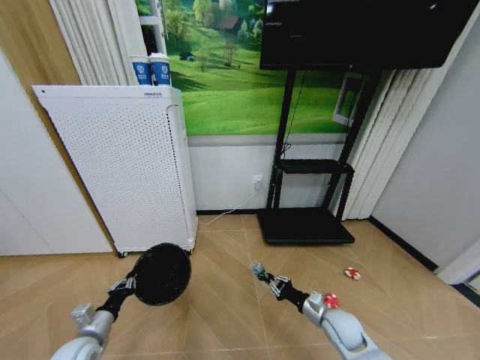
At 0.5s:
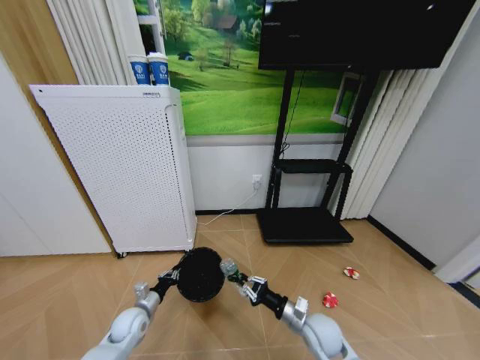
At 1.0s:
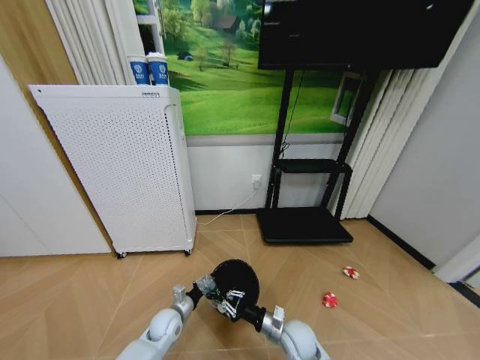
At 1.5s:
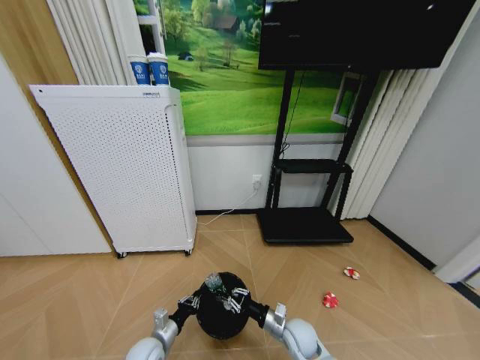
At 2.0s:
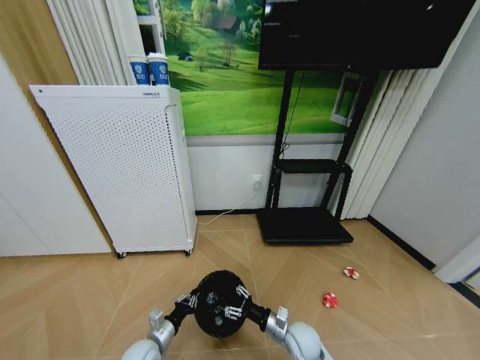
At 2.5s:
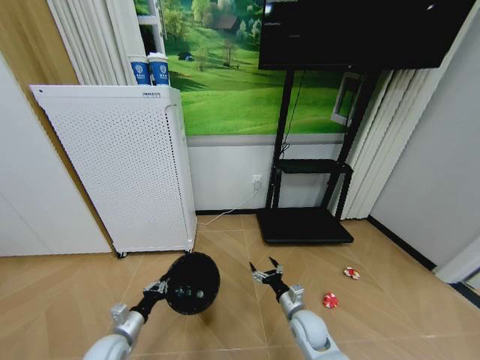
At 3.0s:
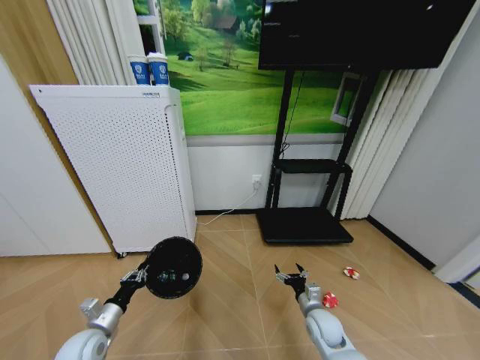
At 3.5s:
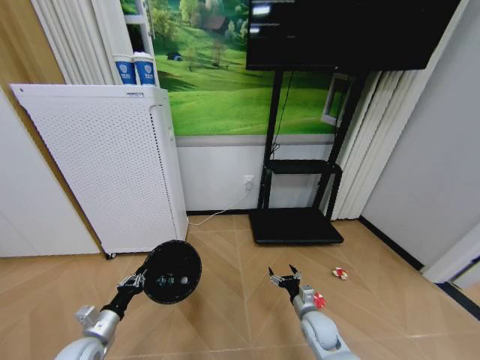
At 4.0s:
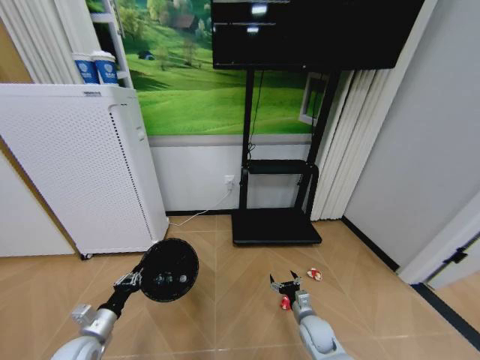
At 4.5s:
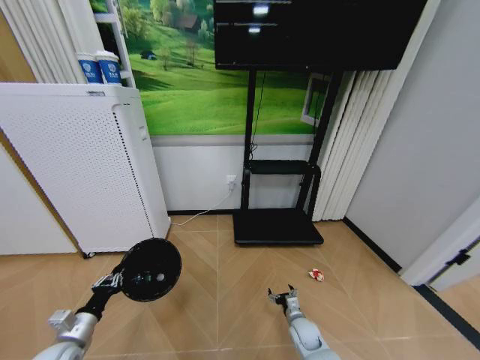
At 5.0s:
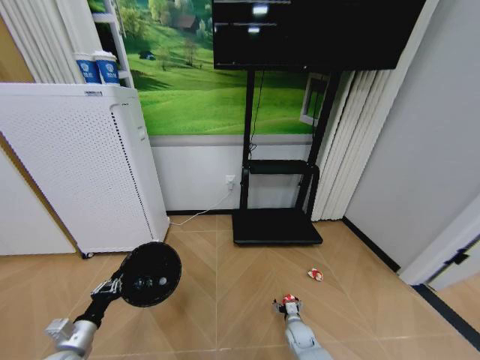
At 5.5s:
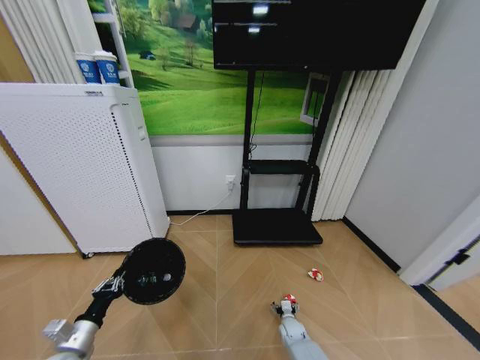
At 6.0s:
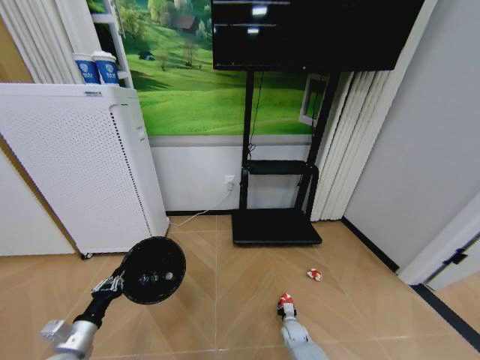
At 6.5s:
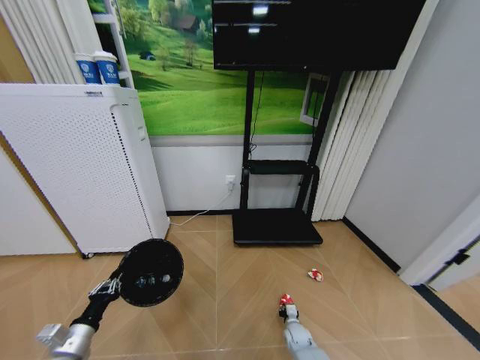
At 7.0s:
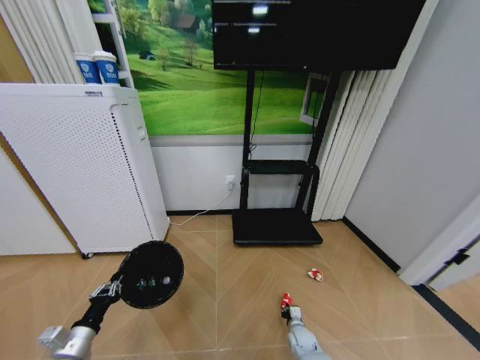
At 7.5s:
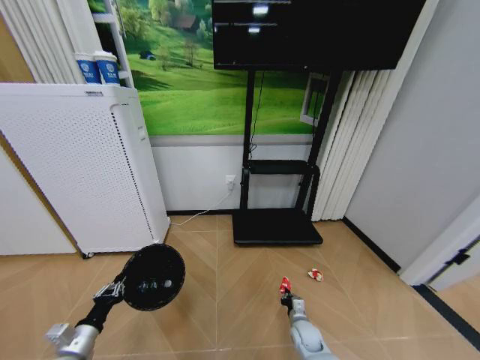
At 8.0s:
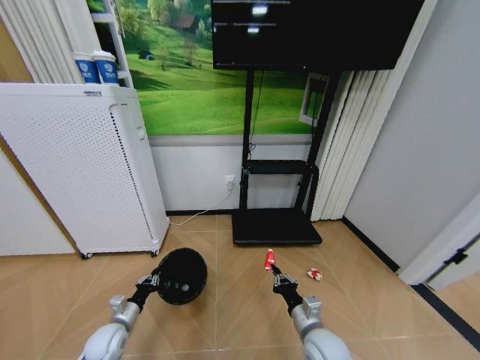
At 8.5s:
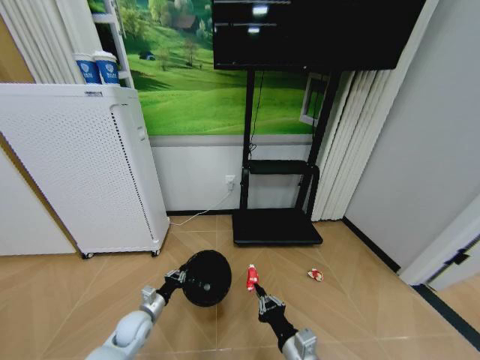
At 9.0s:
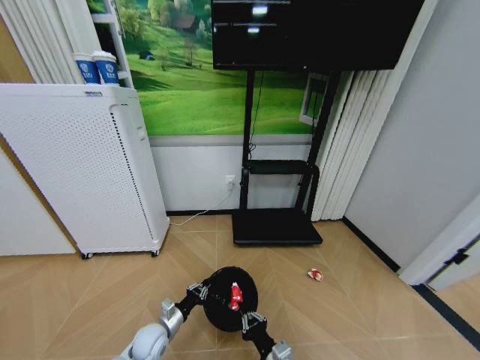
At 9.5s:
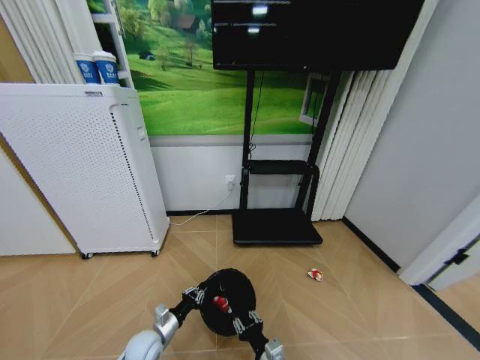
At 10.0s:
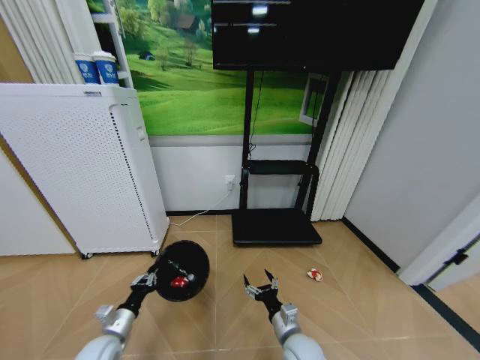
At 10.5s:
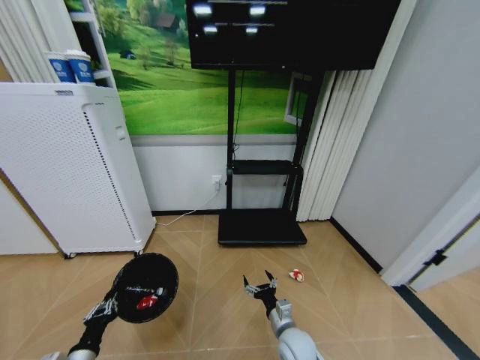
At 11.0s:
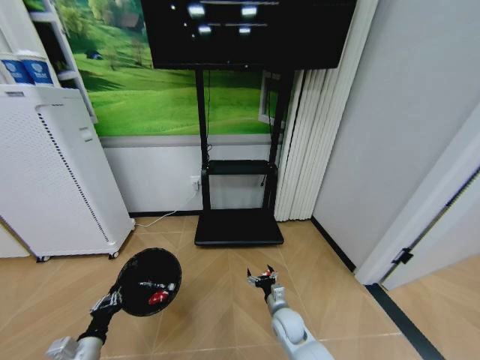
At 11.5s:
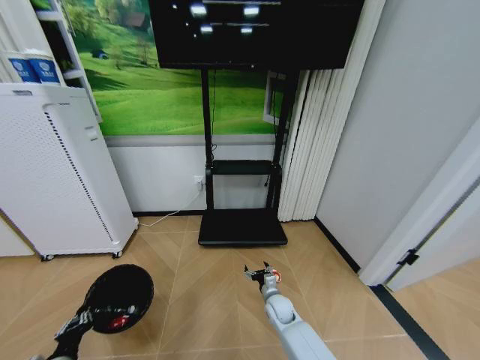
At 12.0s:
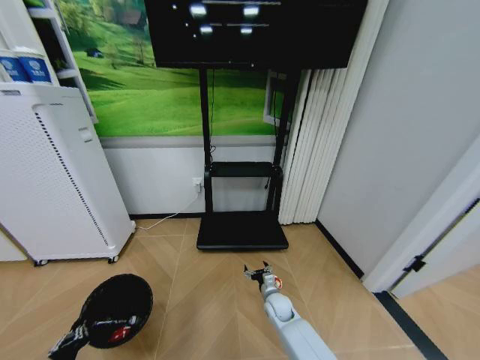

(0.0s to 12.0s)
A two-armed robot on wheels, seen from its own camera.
Task of the whole recording: Pick up the trash bin and place the garbage on the floor into it.
0.0s - 2.0s: The right gripper moves to the left, about 10 cm, and opens its fingers. Meanwhile the left gripper heads to the right and downward, covering roughly 15 cm.
2.0s - 4.0s: The left gripper goes some 15 cm to the left and upward; the right gripper shifts roughly 5 cm to the right.
4.0s - 6.0s: The right gripper goes about 15 cm downward, and closes its fingers.
6.0s - 8.0s: The right gripper shifts approximately 25 cm upward and backward, and closes. Meanwhile the left gripper moves forward and downward, approximately 10 cm.
8.0s - 10.0s: The right gripper opens. The left gripper travels to the right and back again, approximately 10 cm each way.
10.0s - 12.0s: The right gripper heads forward and downward, covering roughly 15 cm. The left gripper shifts roughly 15 cm backward and to the left.

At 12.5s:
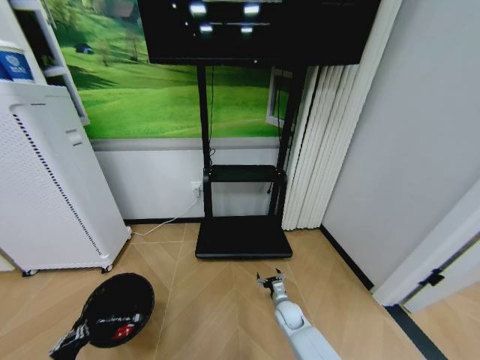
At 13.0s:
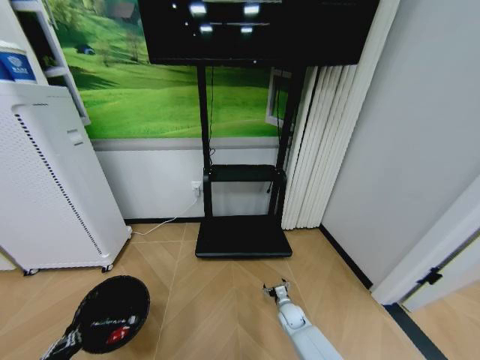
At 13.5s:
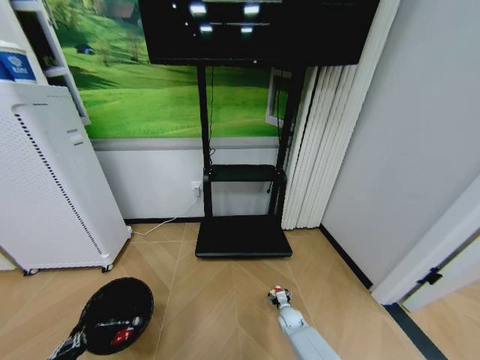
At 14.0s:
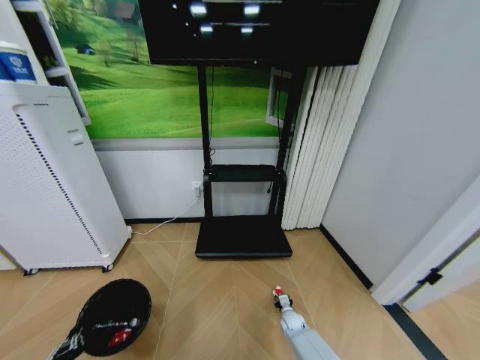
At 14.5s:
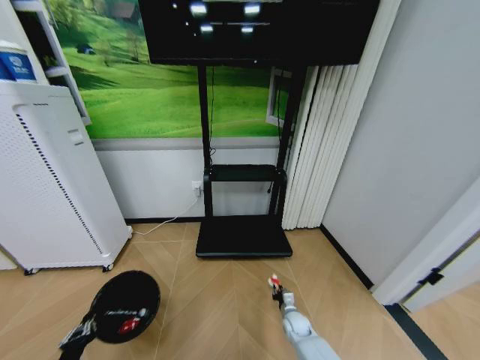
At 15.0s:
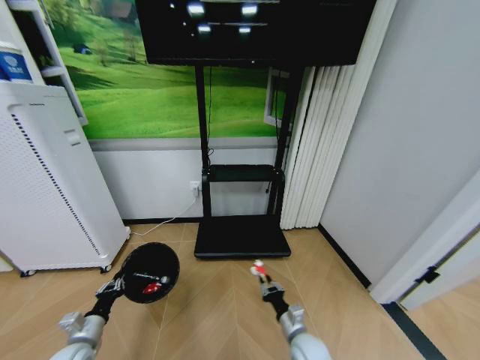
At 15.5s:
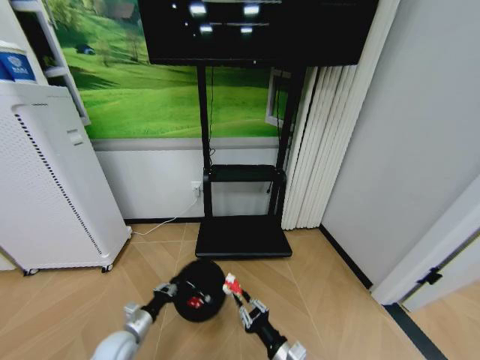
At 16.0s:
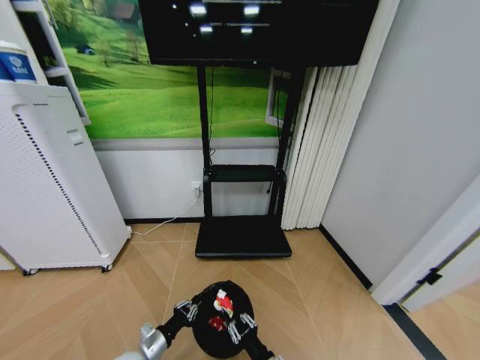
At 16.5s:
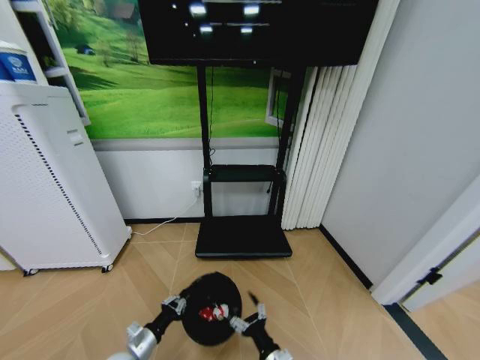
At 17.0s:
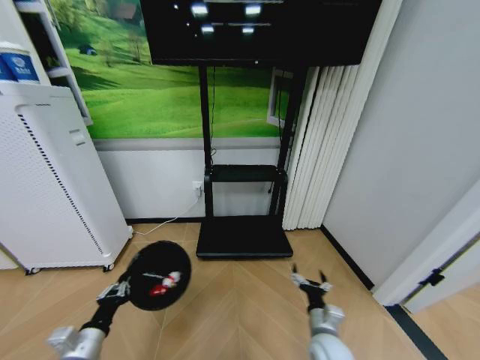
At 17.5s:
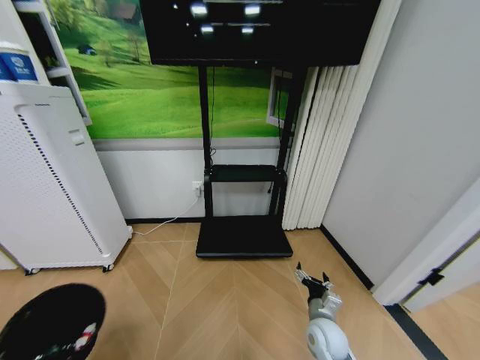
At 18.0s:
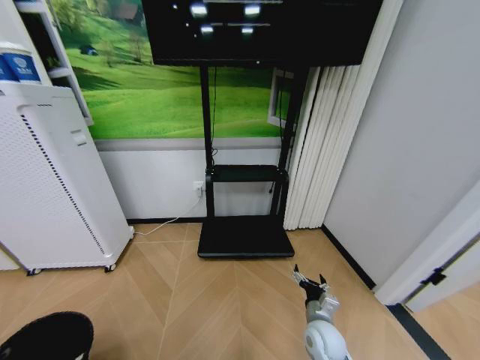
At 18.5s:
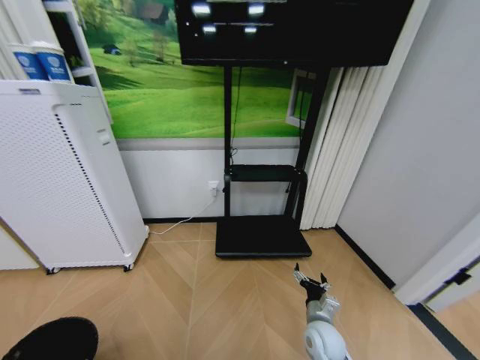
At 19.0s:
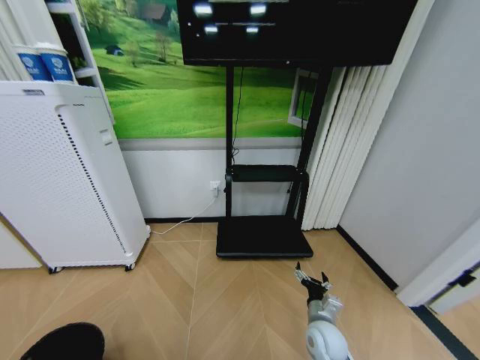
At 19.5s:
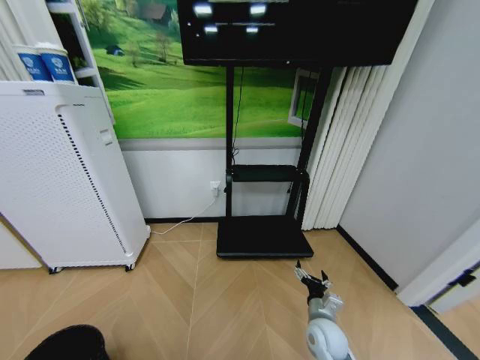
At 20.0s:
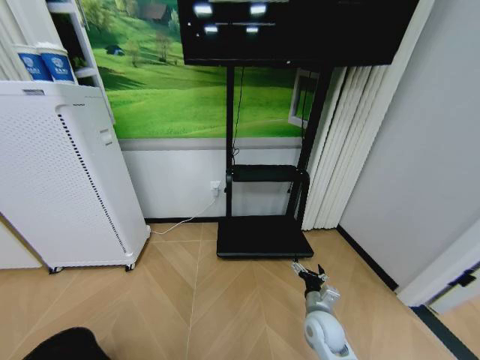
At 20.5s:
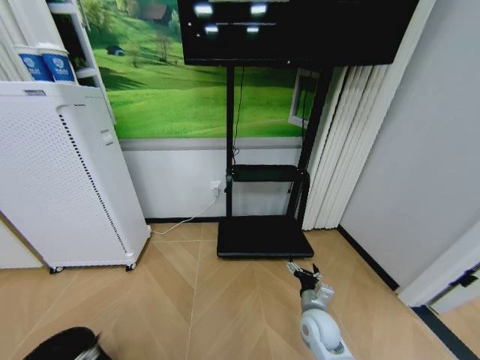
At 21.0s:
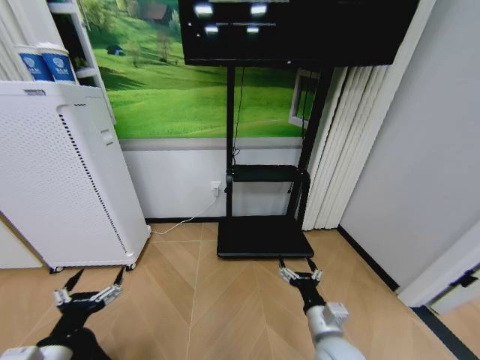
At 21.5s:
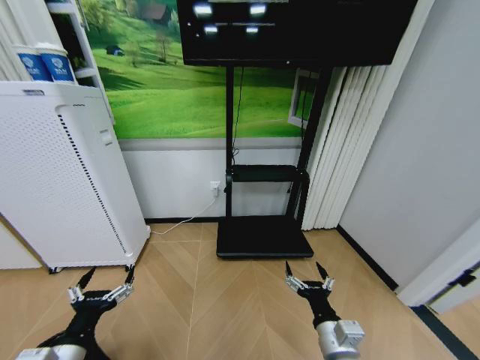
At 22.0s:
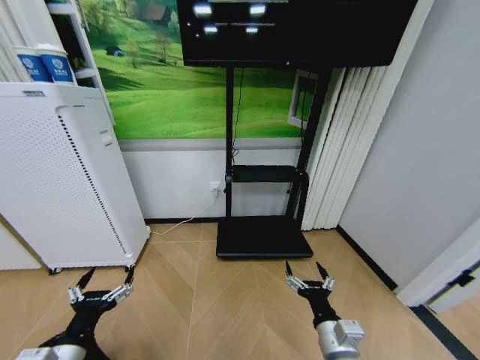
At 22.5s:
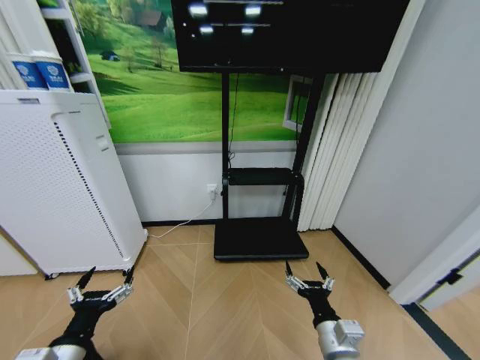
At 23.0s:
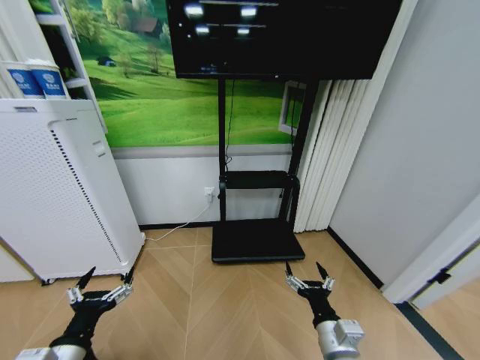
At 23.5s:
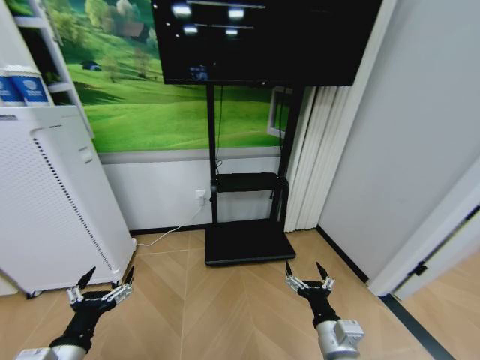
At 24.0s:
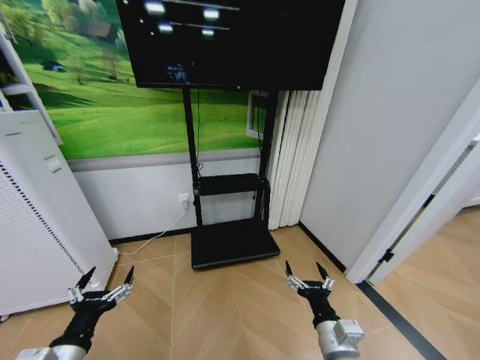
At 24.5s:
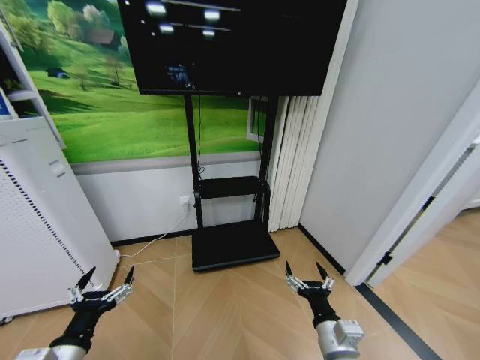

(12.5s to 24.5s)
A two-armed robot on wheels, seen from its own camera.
Task of the whole recording: Pick up the trash bin and place the garbage on the floor into it.
12.5s - 14.5s: The right gripper goes approximately 5 cm downward, and closes.
14.5s - 16.5s: The right gripper shifts roughly 25 cm backward, upward and to the left, and opens up; the left gripper is displaced to the right and forward by approximately 15 cm.
16.5s - 18.5s: The right gripper travels forward and to the right by some 15 cm, while the left gripper goes about 25 cm backward and to the left.
18.5s - 20.5s: The left gripper goes about 15 cm to the right and upward, and opens its fingers.
20.5s - 22.5s: The right gripper goes about 15 cm backward and upward; the left gripper travels forward by some 10 cm.

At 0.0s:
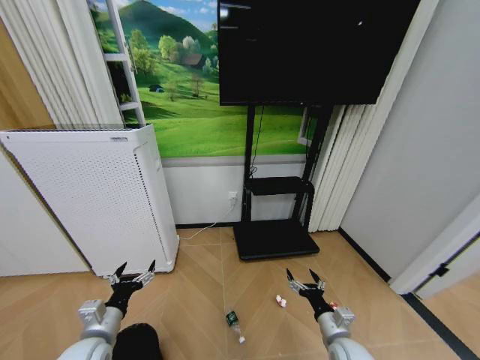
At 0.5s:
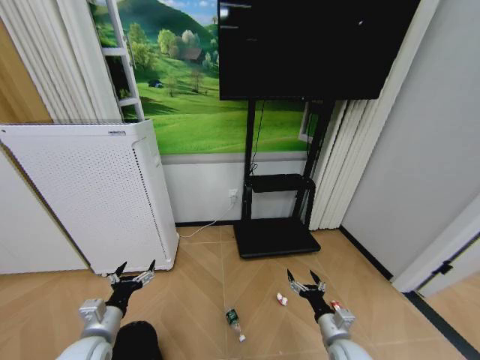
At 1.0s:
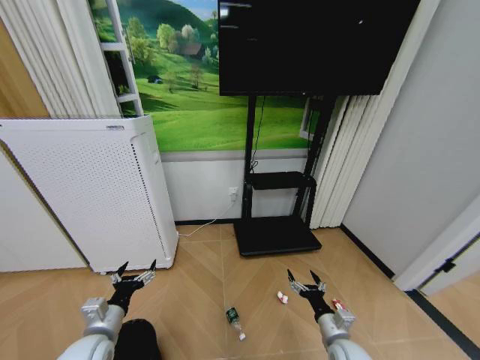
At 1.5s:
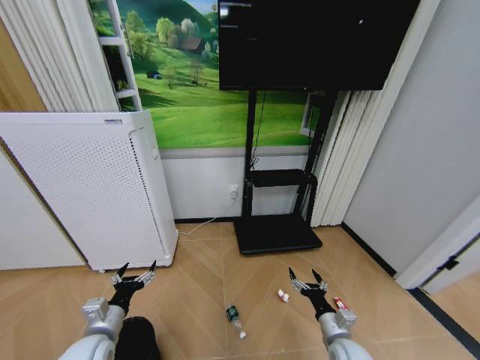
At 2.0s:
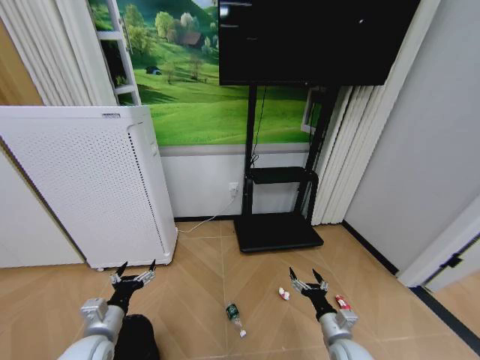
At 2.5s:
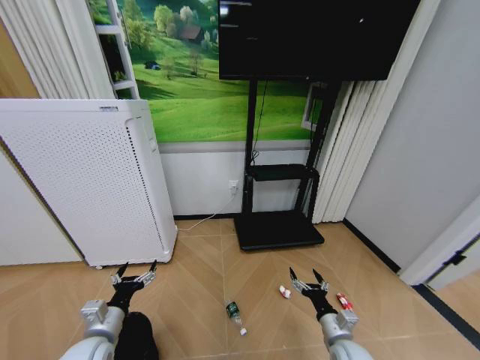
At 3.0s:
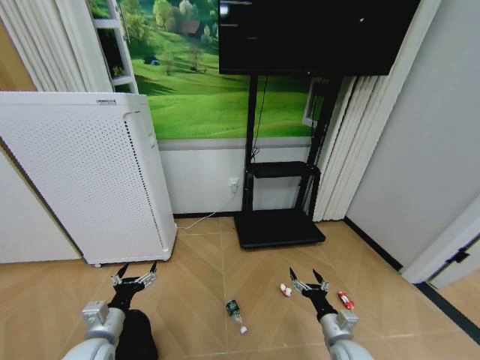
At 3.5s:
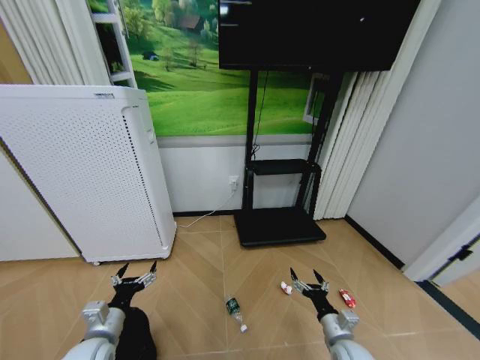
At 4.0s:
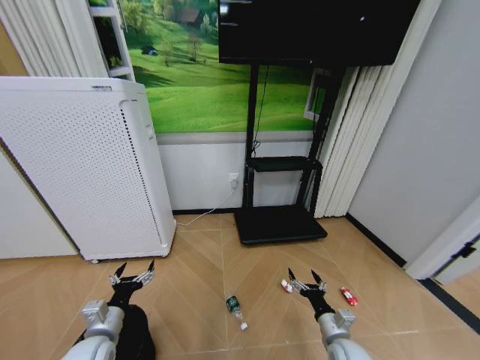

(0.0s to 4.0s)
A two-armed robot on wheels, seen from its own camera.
Task of the whole recording: Pick up the trash bin and place the garbage on the floor into it.
0.0s - 2.0s: Both grippers stay put.
2.0s - 4.0s: Both grippers stay about where they are.
